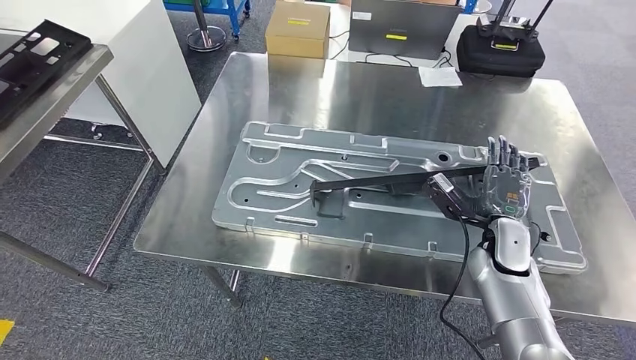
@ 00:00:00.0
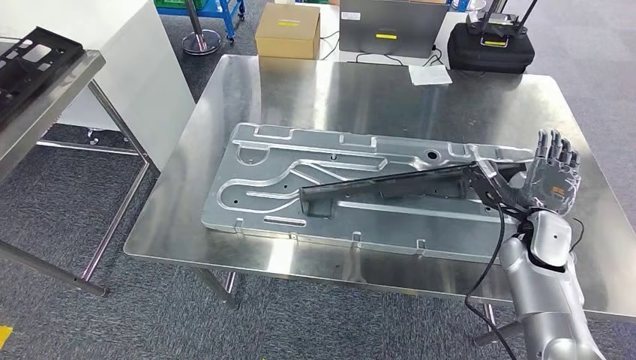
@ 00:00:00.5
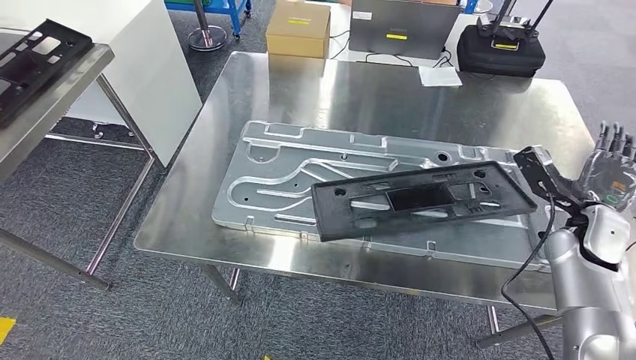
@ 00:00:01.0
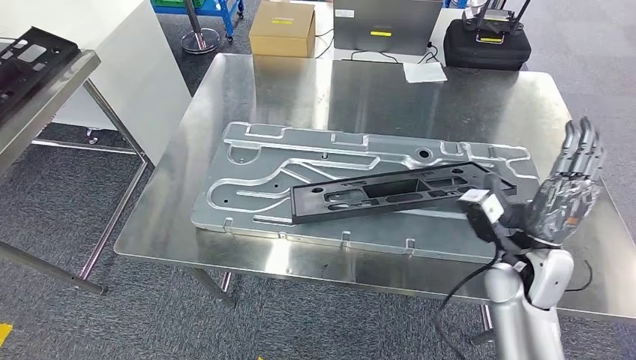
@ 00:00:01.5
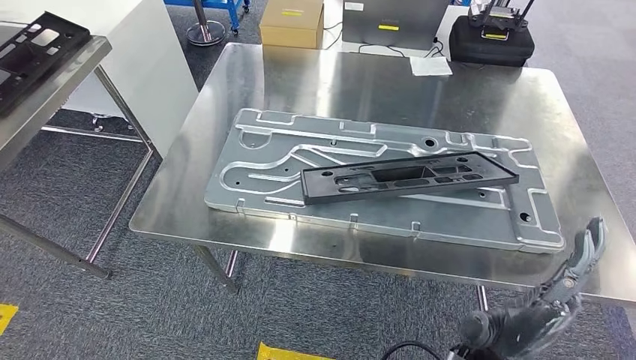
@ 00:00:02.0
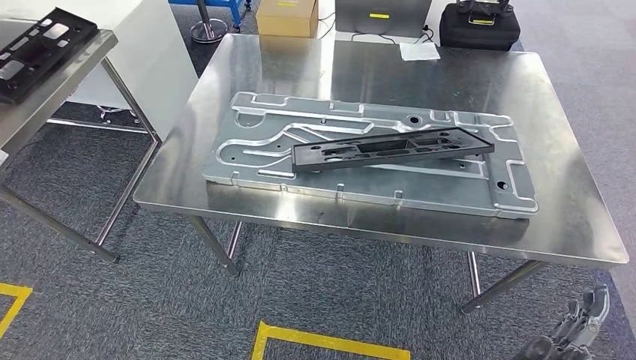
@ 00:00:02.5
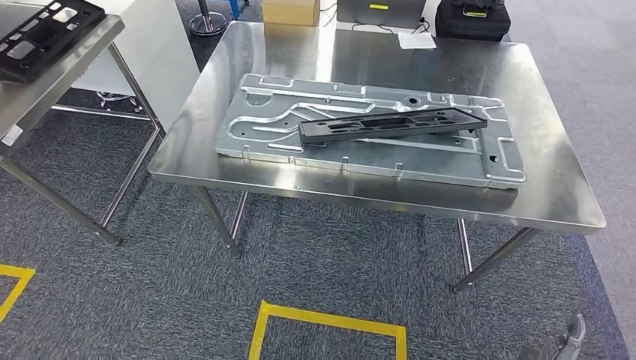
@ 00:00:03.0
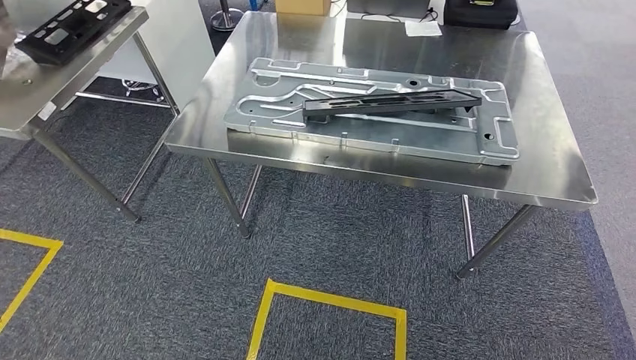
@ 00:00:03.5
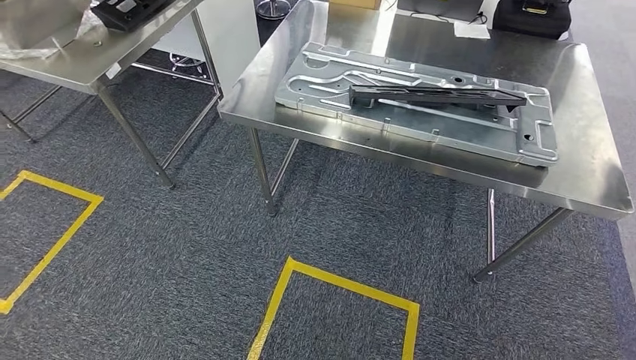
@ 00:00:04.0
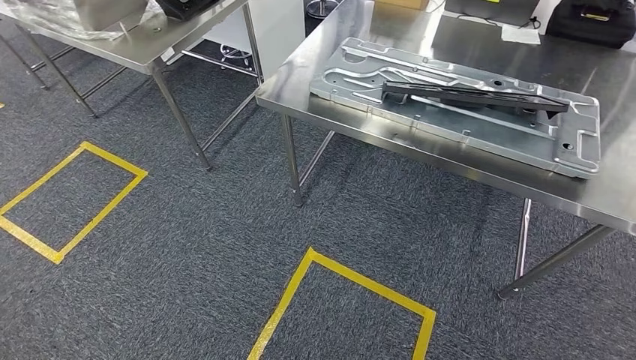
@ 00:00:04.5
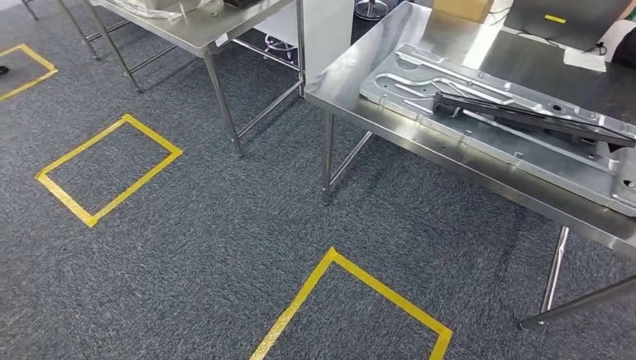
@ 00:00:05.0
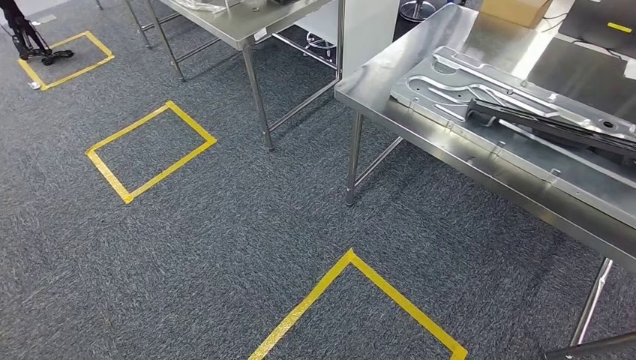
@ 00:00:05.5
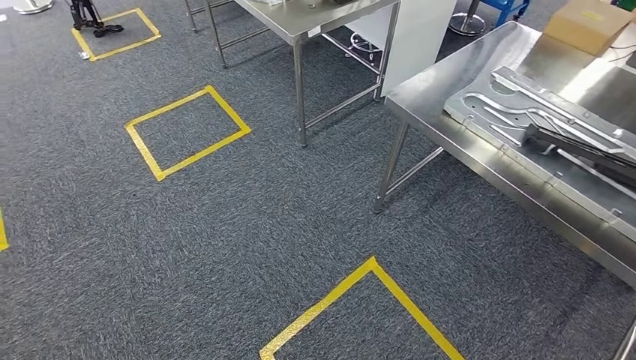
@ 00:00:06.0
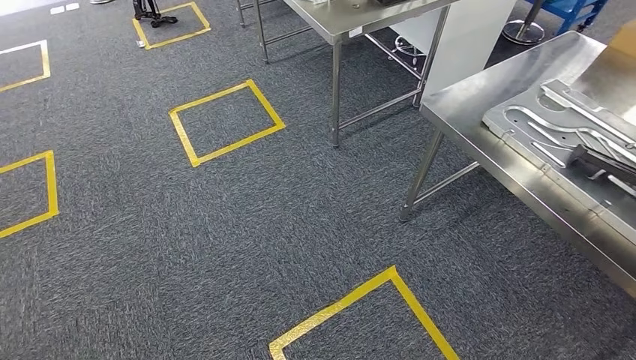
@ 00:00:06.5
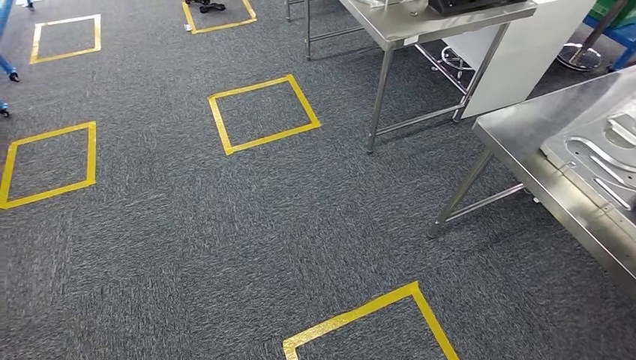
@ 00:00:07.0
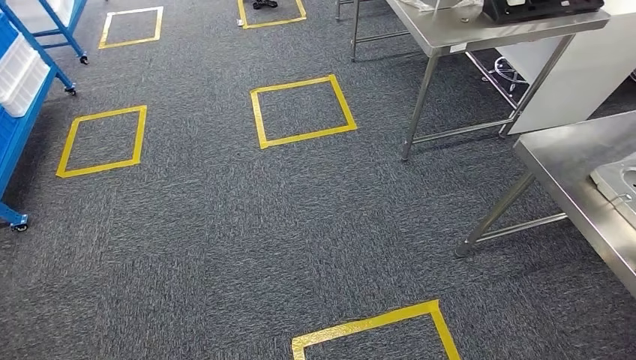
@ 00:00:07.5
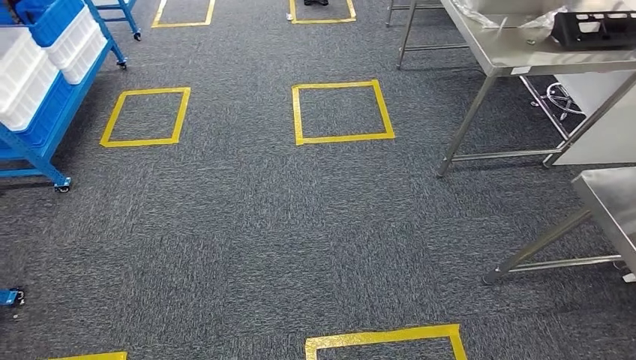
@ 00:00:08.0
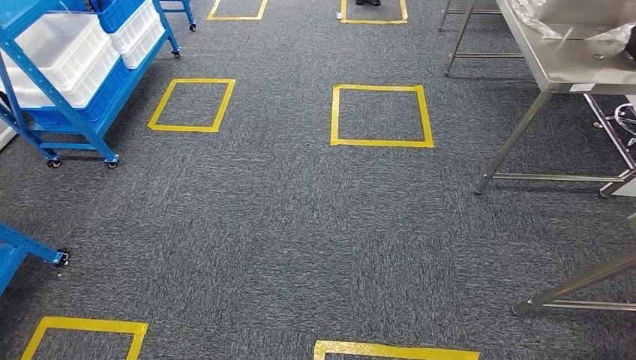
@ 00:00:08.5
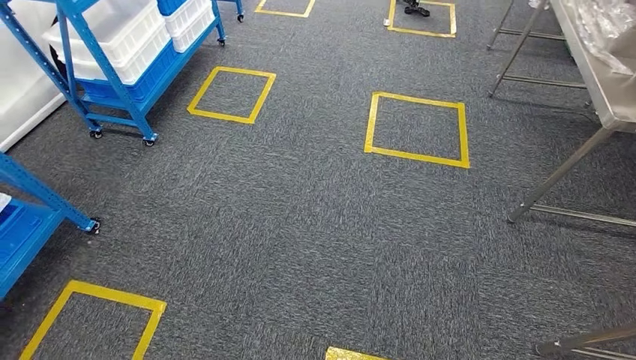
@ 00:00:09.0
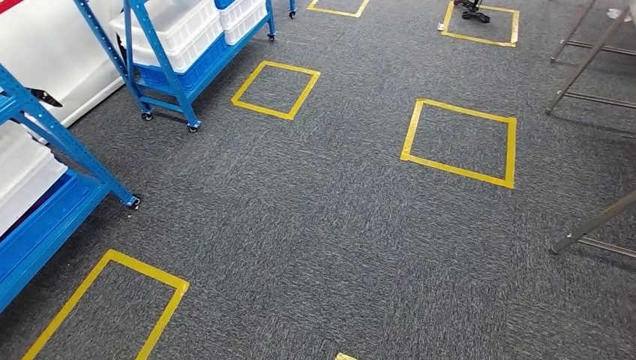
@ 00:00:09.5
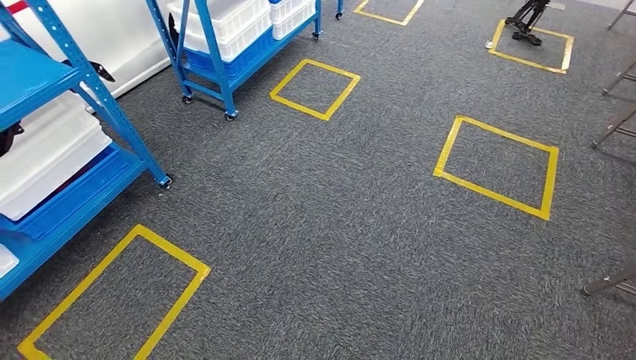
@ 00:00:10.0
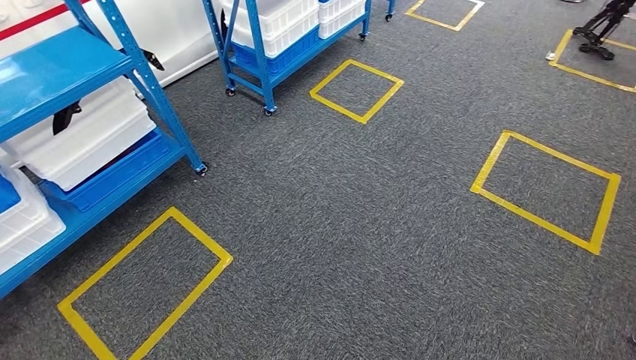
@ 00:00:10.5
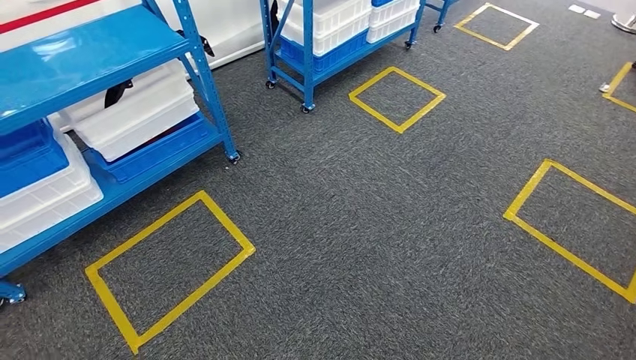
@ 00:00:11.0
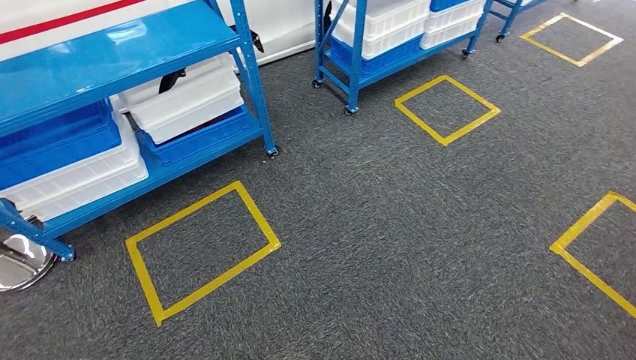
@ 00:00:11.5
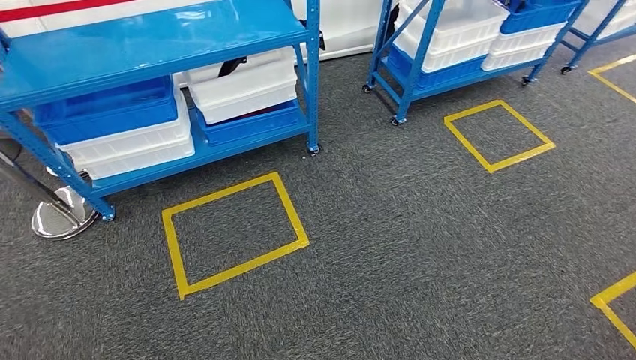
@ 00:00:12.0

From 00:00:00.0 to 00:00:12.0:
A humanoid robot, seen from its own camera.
Step, from 00:00:00.0 to 00:00:04.0: Insert the large material into the corresponding slot on the workbench.

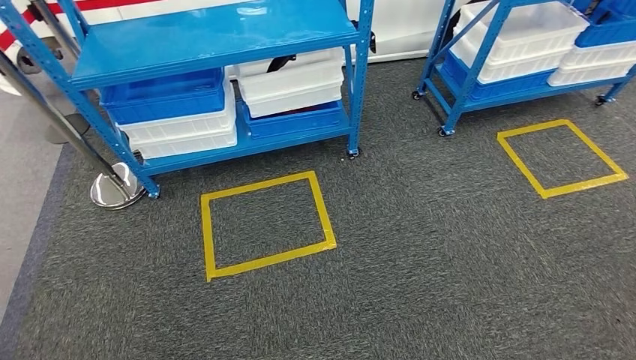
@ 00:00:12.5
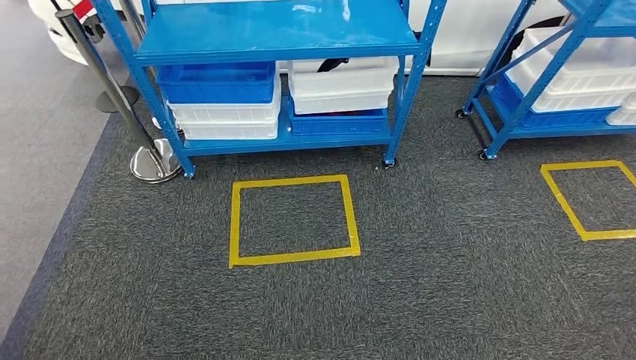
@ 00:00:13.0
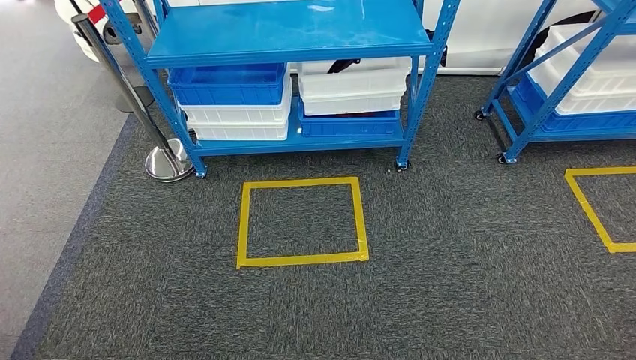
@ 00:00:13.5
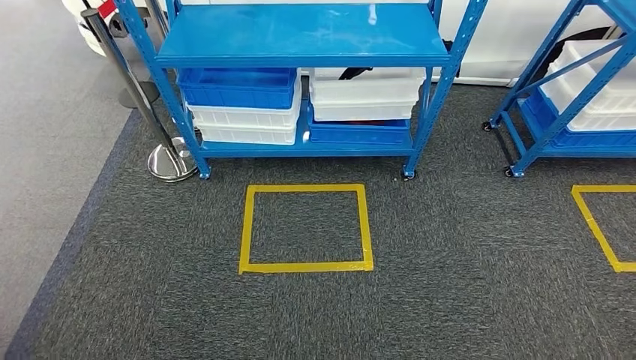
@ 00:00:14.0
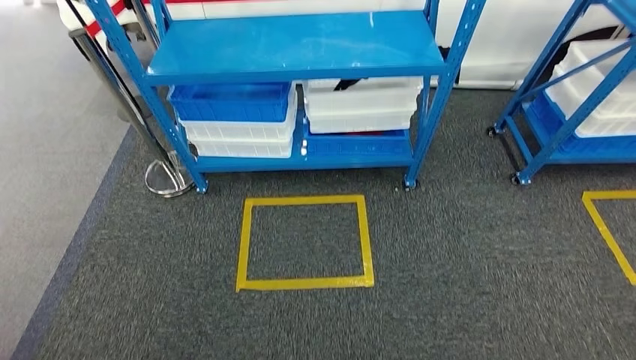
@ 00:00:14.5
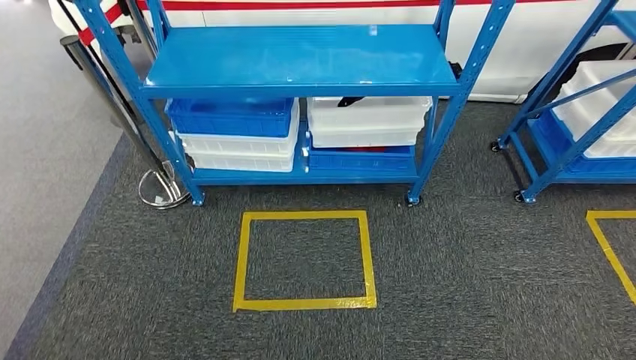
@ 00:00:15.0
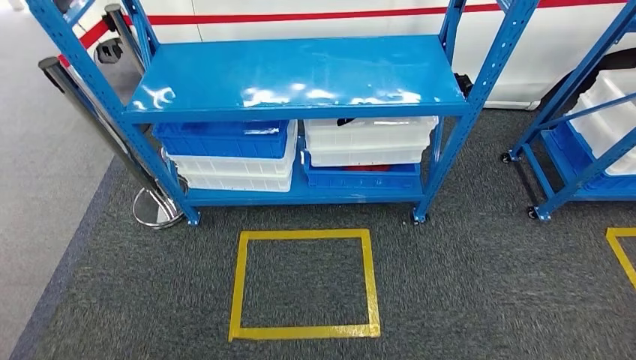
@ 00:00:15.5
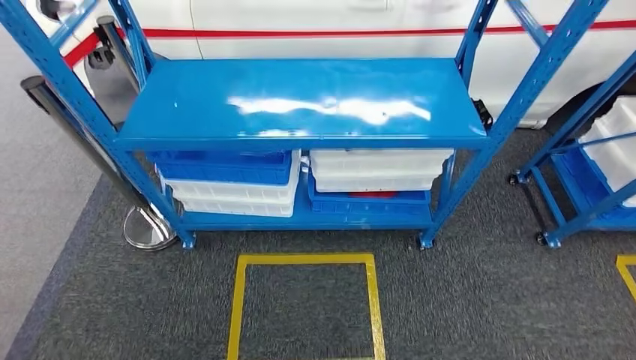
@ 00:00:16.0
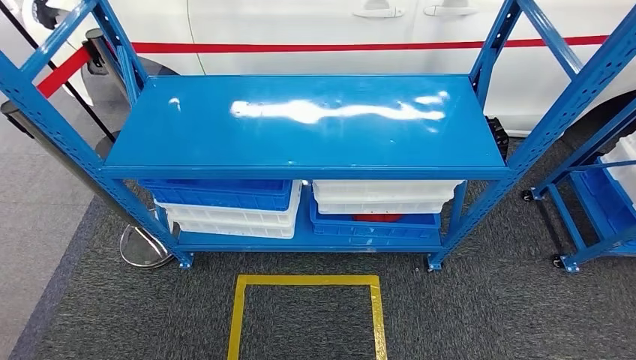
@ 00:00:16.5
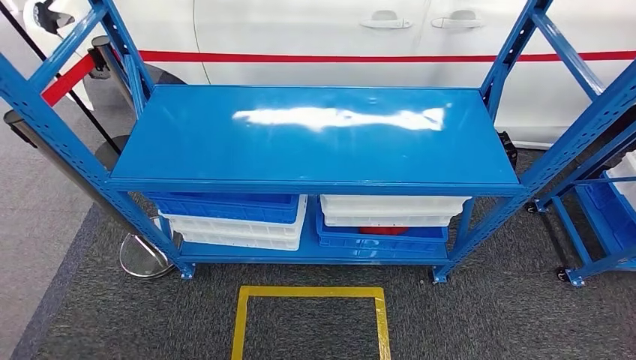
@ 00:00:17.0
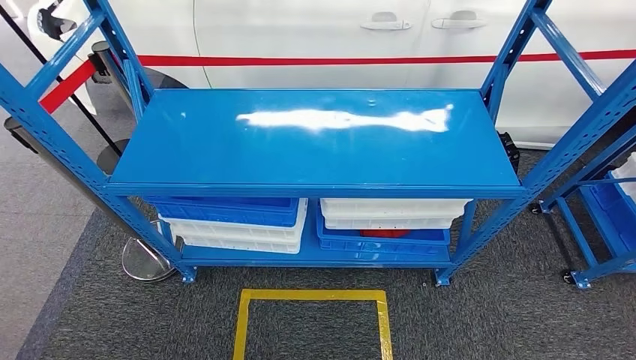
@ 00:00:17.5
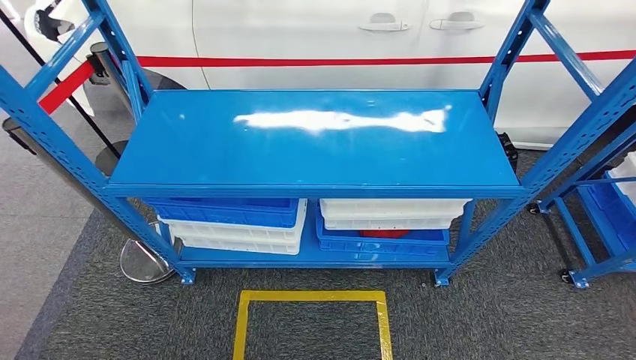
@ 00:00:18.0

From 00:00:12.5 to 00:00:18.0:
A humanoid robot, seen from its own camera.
Step, from 00:00:12.5 to 00:00:18.0: Return to the initial position at the shelf.
